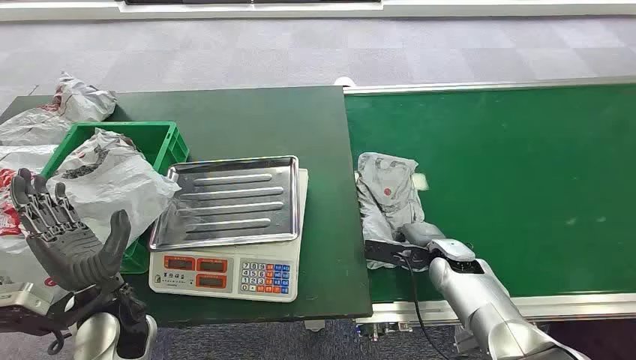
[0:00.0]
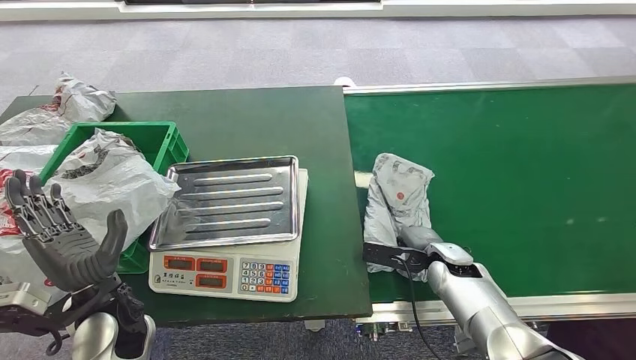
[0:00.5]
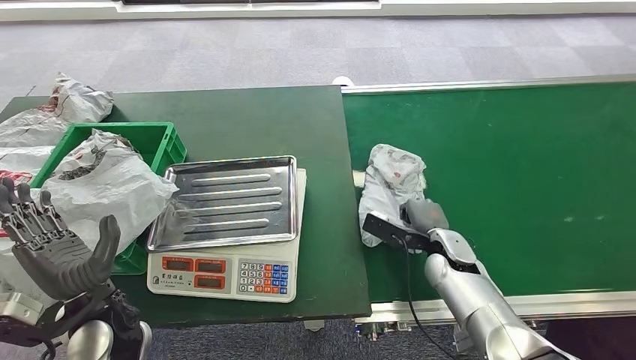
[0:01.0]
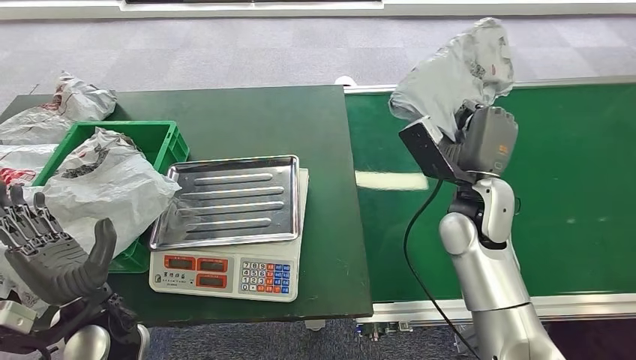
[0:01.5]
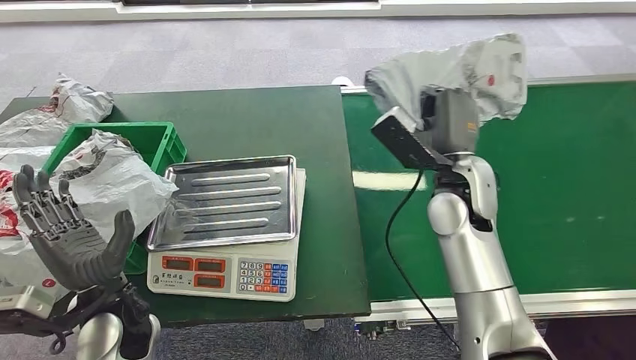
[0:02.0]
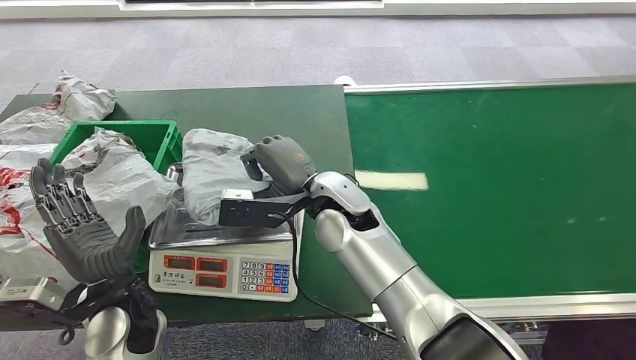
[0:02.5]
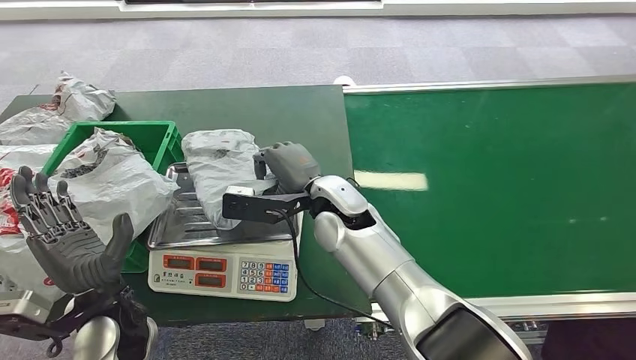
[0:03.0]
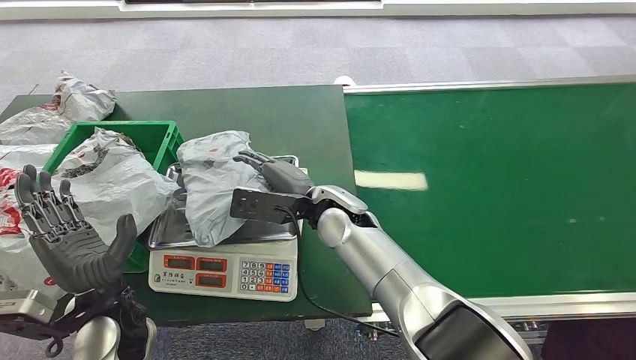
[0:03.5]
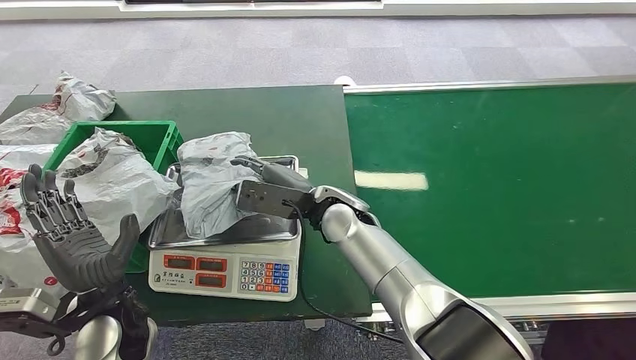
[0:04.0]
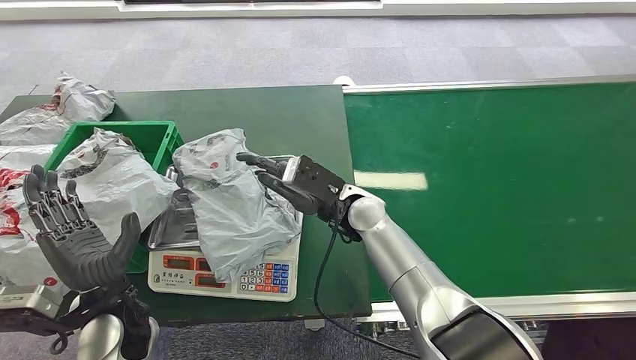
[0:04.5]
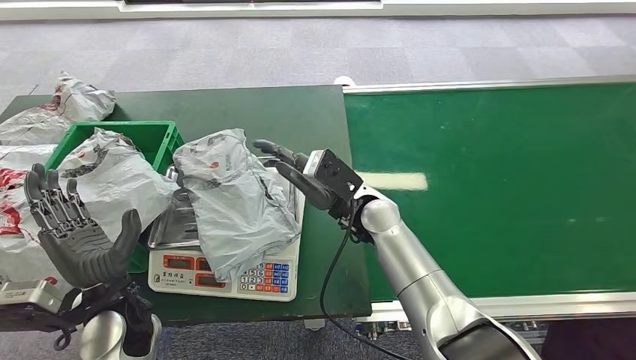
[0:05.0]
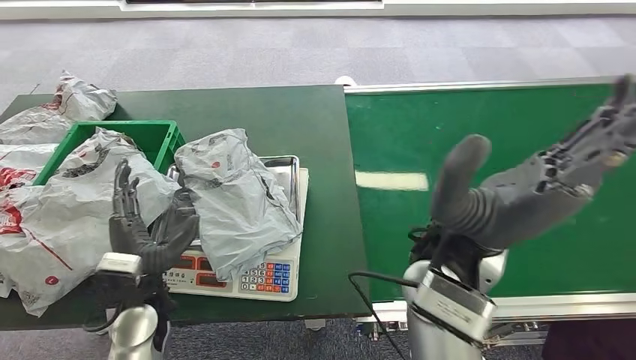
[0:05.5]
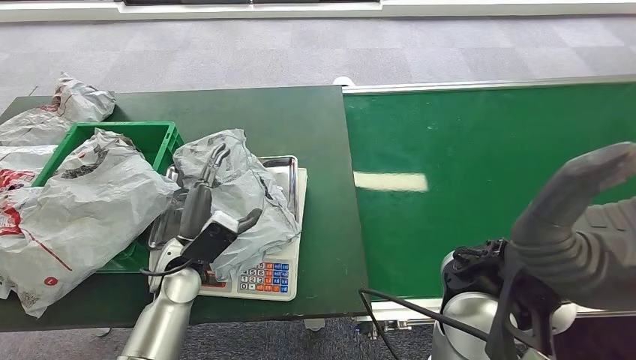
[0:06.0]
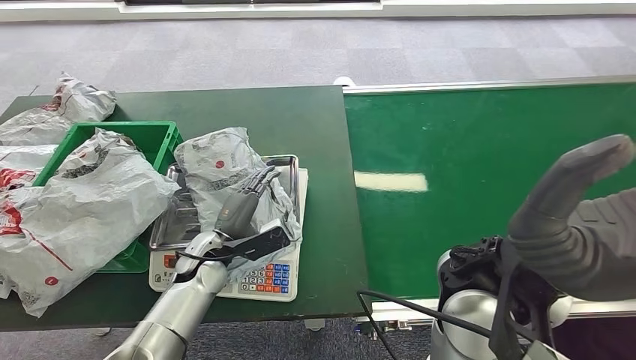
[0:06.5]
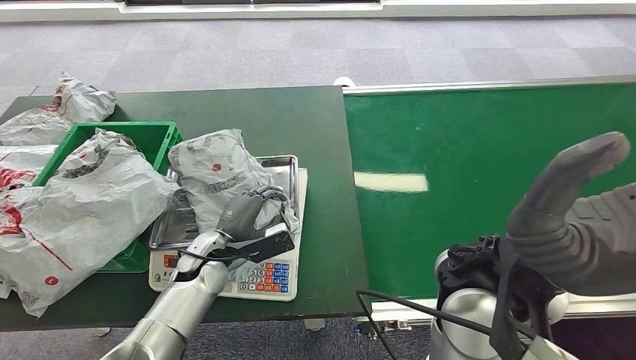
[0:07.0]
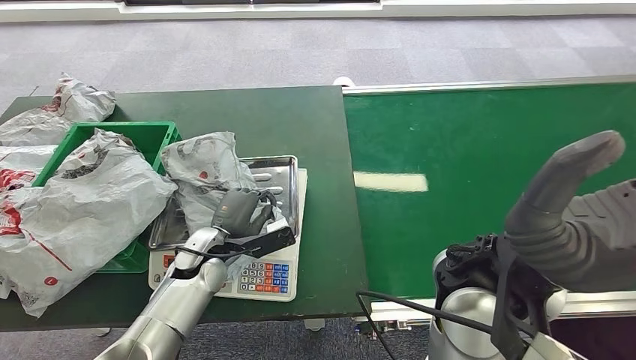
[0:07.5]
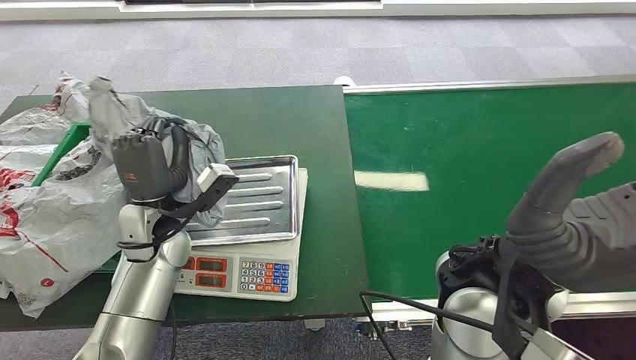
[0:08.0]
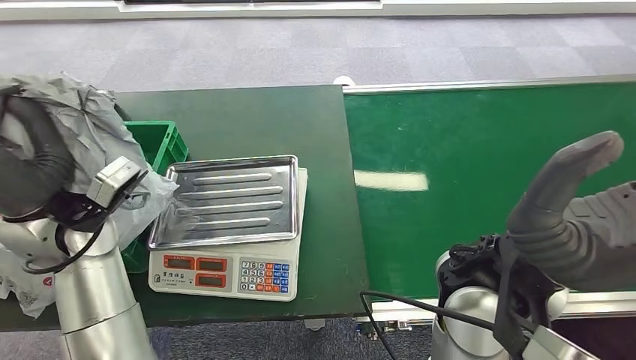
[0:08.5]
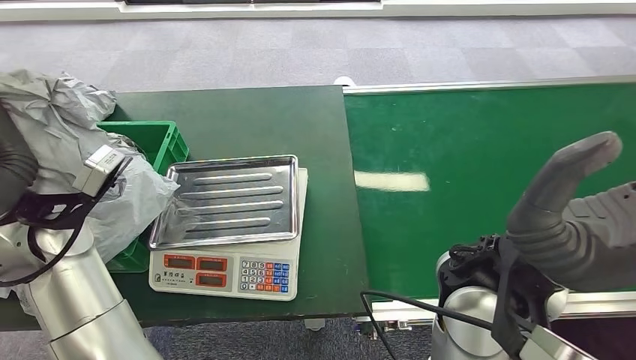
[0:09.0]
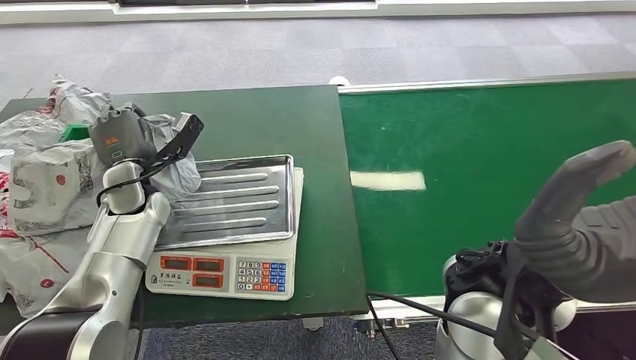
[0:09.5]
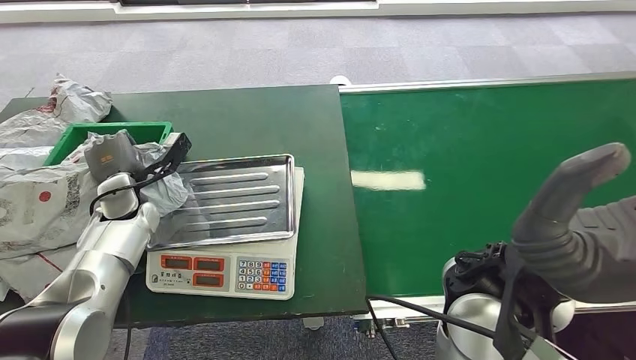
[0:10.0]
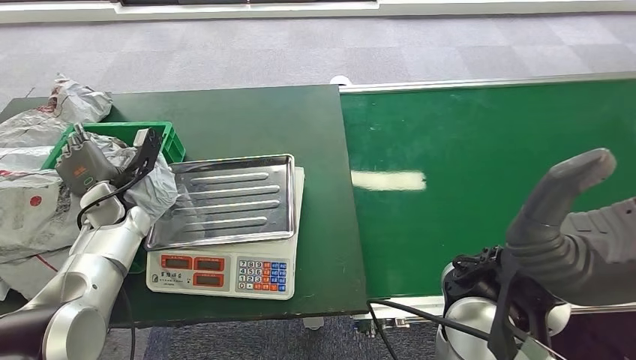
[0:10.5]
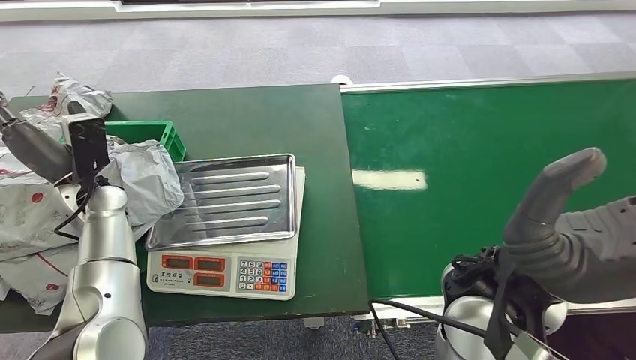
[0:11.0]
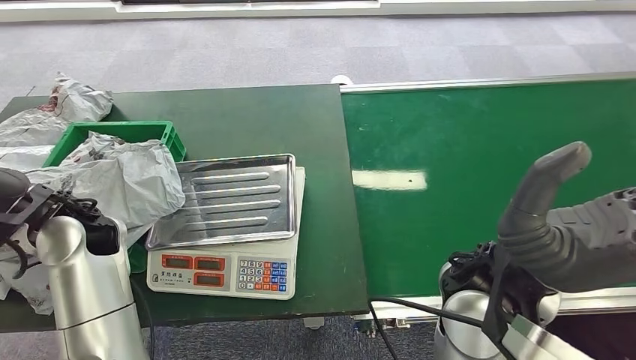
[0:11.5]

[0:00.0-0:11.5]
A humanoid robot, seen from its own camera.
Step, 0:00.0 to 0:01.5: Pick up the package from the conveyor belt.
Step, 0:02.0 to 0:04.0: Place the package onto the inbound machine.
Step, 0:04.5 to 0:09.0: Pick up the package from the inbound machine.
Step, 0:09.5 to 0:11.5: Place the package into the parcel locker.
